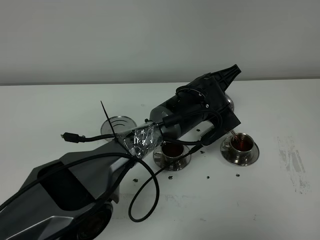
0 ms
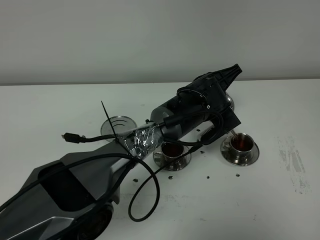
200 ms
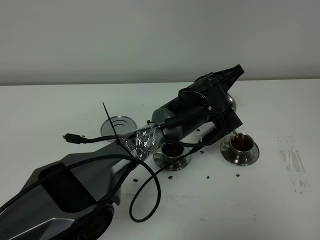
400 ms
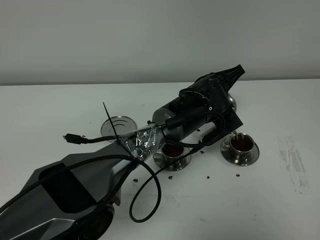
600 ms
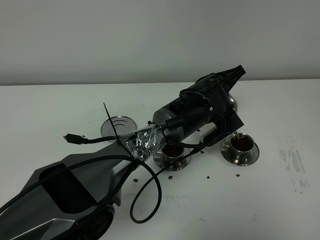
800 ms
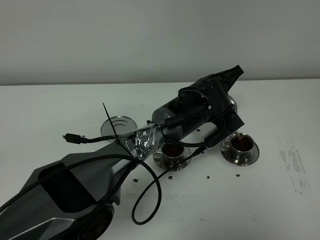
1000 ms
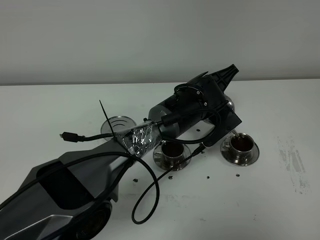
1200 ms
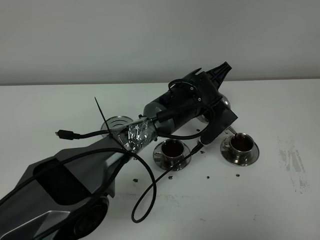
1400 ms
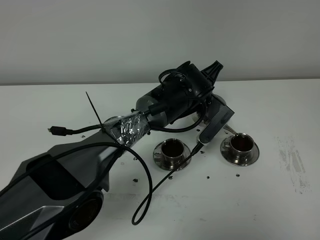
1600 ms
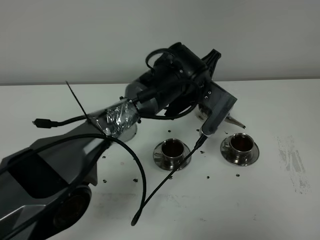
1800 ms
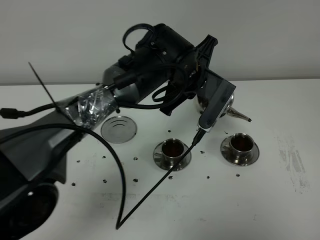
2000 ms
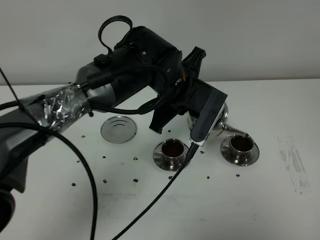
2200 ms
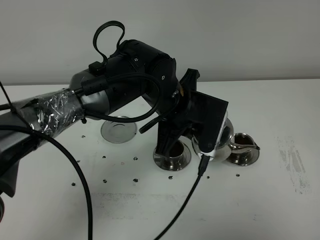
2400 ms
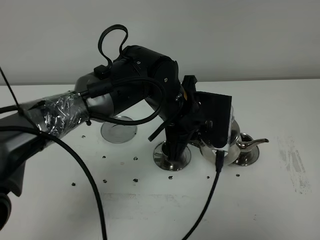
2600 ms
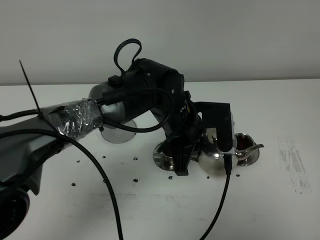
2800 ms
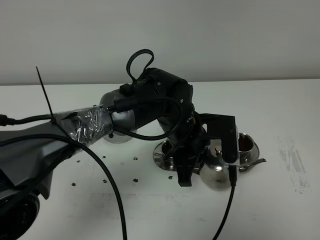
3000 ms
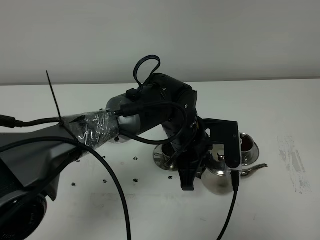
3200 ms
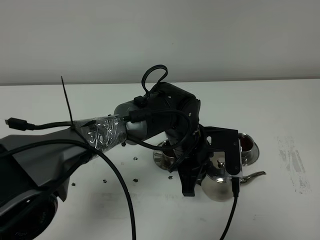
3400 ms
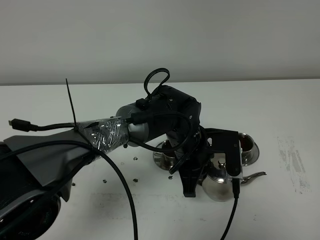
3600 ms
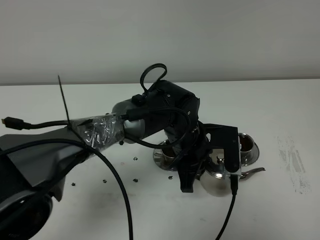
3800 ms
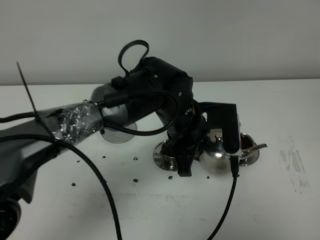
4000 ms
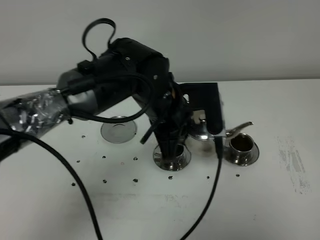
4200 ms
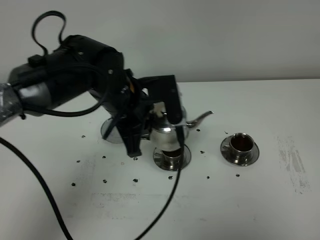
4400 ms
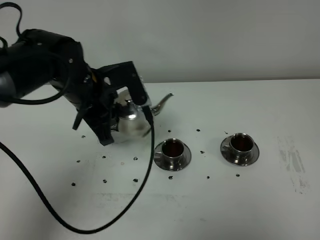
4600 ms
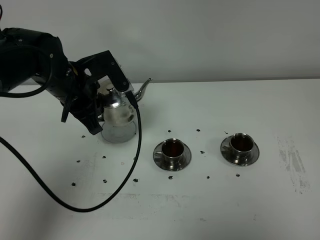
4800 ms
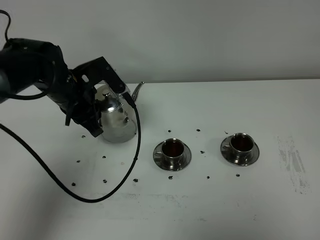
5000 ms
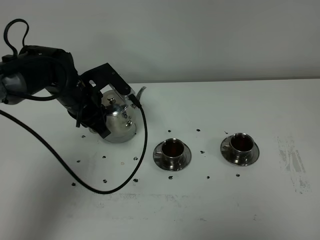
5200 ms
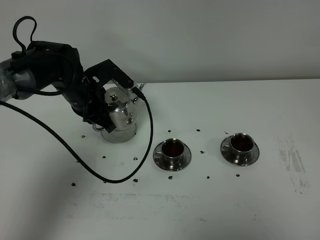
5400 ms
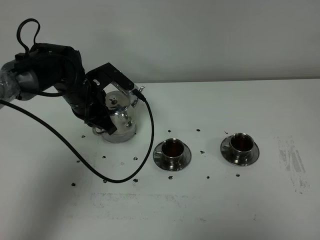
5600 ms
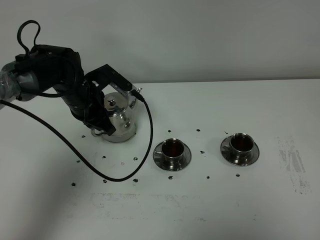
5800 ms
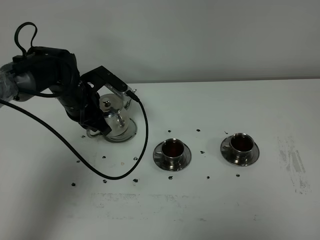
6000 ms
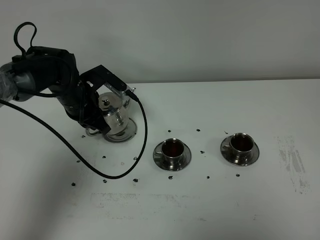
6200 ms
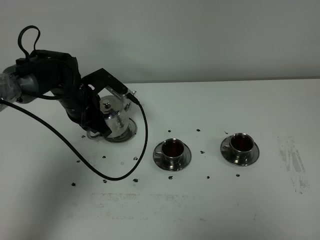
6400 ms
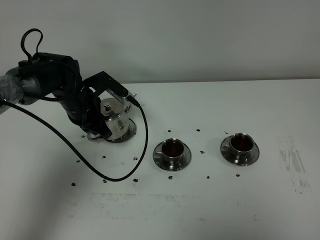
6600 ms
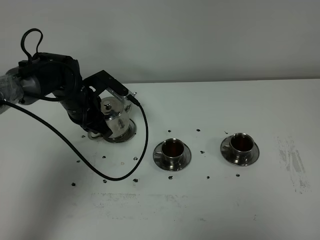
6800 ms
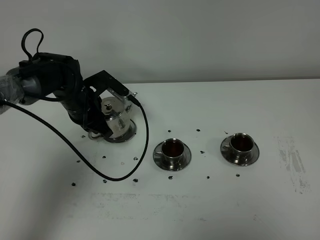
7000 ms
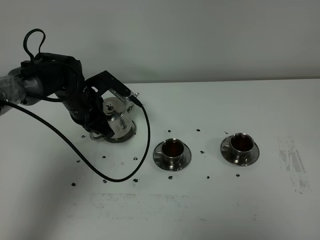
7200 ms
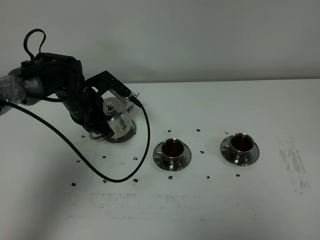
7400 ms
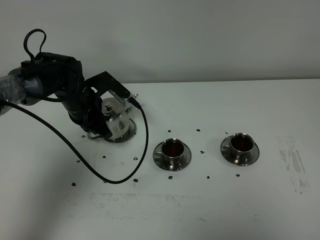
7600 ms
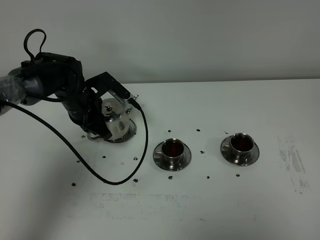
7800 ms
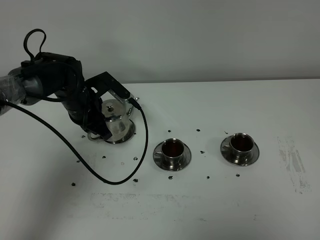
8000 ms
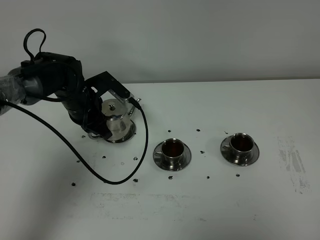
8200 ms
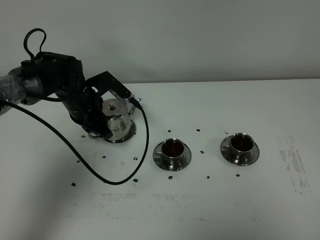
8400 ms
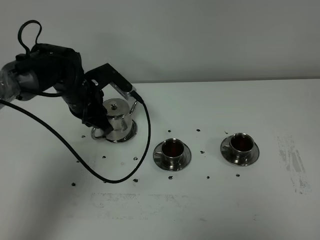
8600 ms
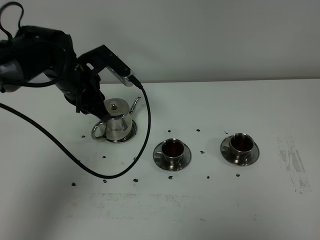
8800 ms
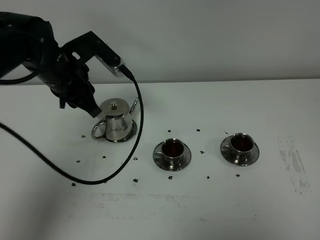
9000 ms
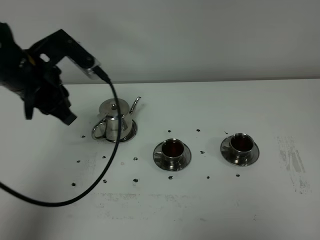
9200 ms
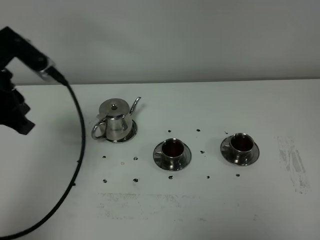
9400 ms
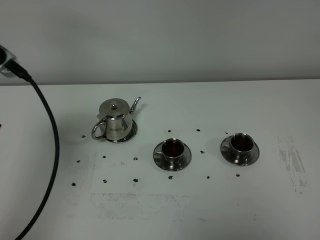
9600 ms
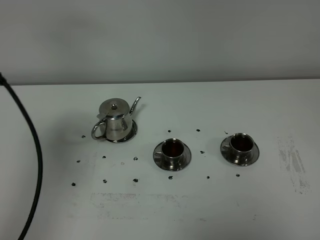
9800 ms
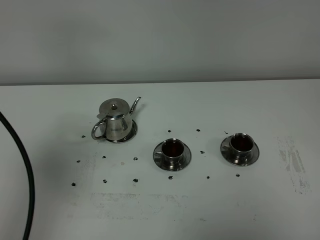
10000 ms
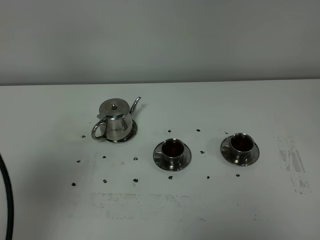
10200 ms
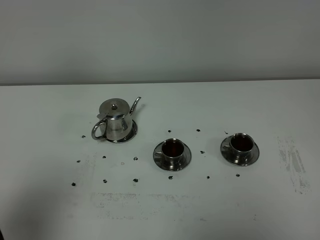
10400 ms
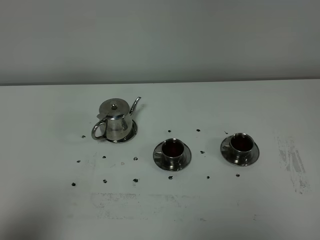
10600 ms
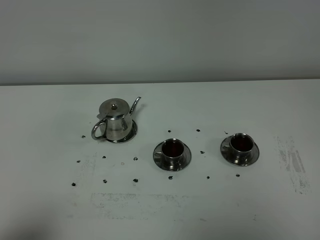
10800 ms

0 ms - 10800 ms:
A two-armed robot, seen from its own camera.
Task of the whole recording: grasp the stainless steel teapot and pour the tea into the two stainless steel teacups one by one, put the stainless steel teapot back in its original place.
0 ms - 1600 ms: There are only small adjustments of the grippers.
1600 ms - 3000 ms: The left gripper is displaced backward by some 10 cm.
3000 ms - 4600 ms: The left gripper moves to the left and upward, approximately 20 cm.
4600 ms - 6200 ms: The left gripper is displaced downward and forward by about 10 cm.
6200 ms - 7800 ms: There are only small adjustments of the grippers.
7800 ms - 9200 ms: The left gripper travels upward and backward by roughly 20 cm.
9200 ms - 10800 ms: The left gripper shifts approximately 30 cm backward.

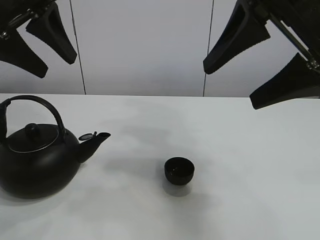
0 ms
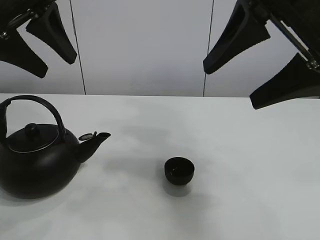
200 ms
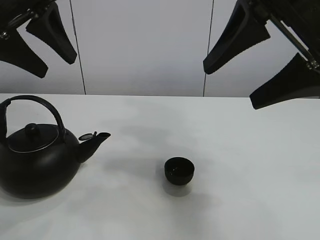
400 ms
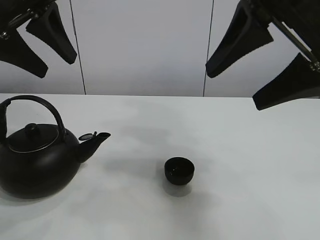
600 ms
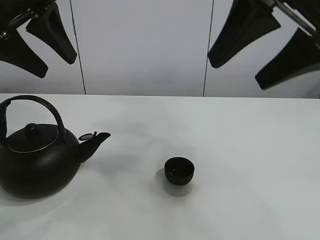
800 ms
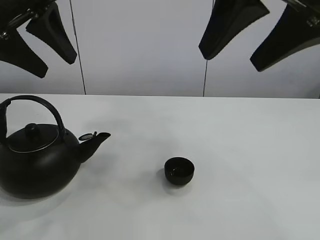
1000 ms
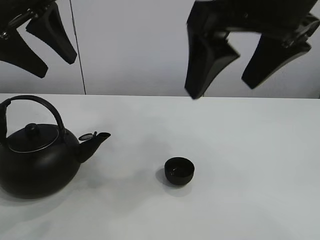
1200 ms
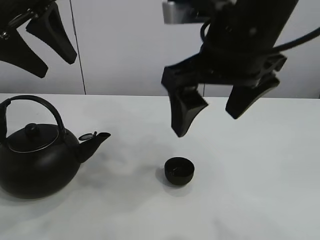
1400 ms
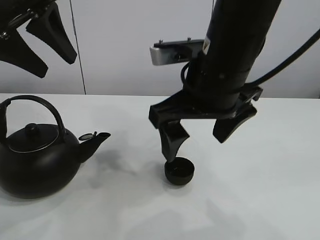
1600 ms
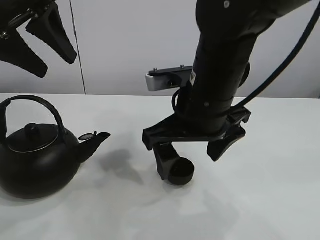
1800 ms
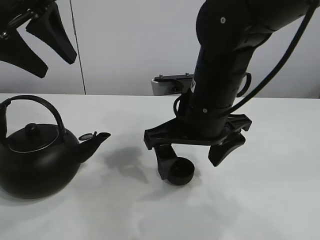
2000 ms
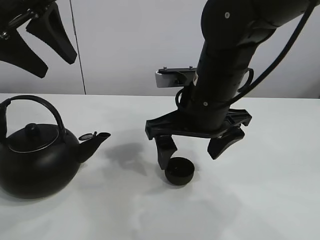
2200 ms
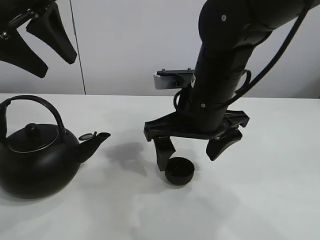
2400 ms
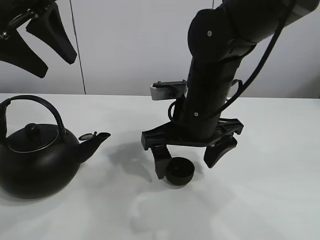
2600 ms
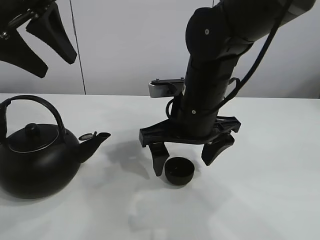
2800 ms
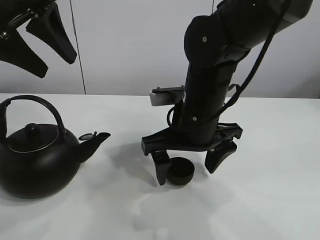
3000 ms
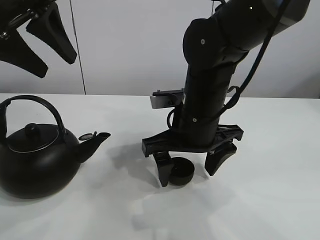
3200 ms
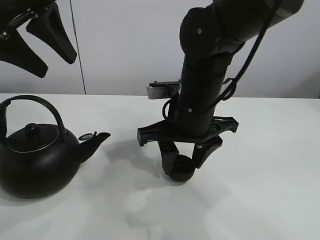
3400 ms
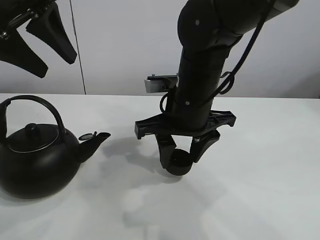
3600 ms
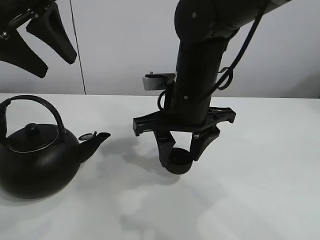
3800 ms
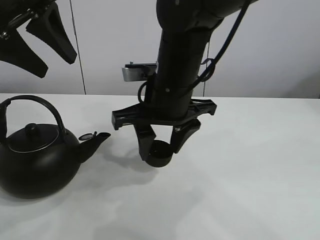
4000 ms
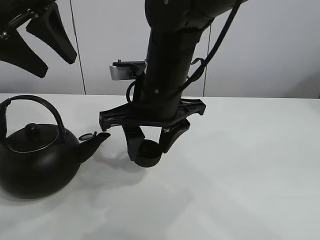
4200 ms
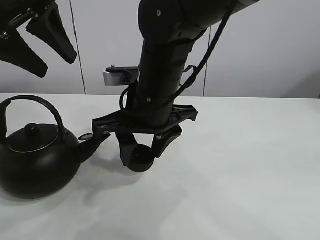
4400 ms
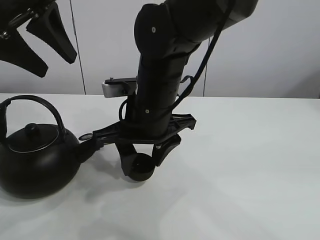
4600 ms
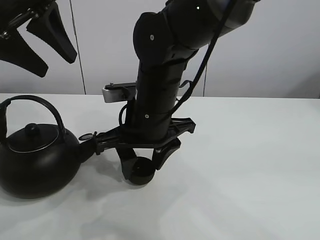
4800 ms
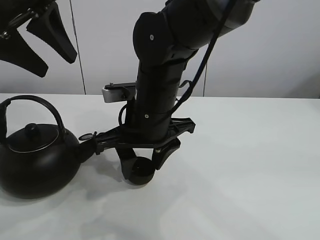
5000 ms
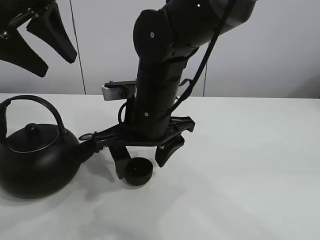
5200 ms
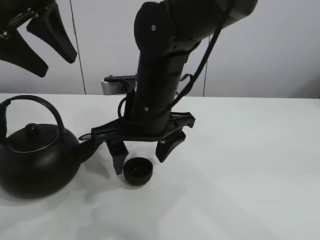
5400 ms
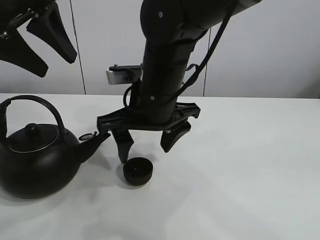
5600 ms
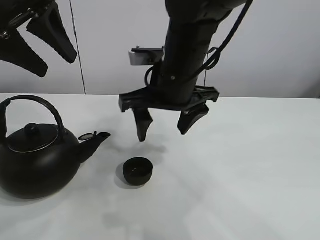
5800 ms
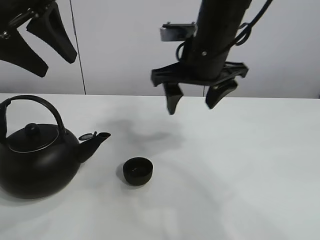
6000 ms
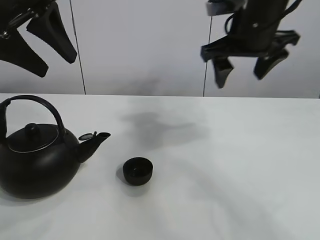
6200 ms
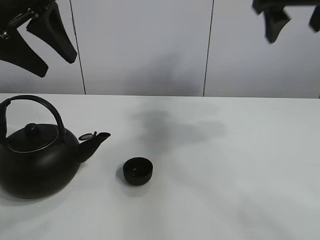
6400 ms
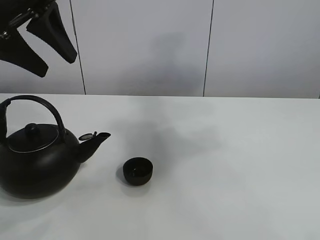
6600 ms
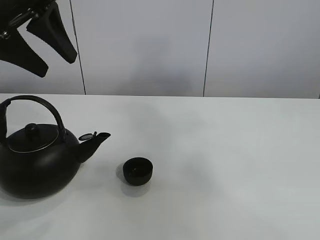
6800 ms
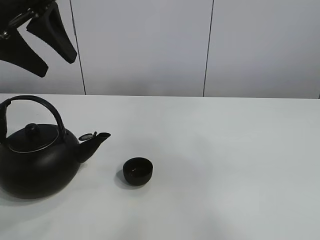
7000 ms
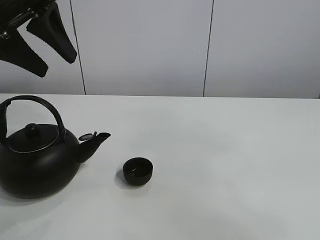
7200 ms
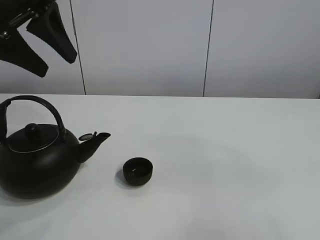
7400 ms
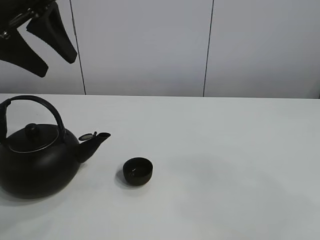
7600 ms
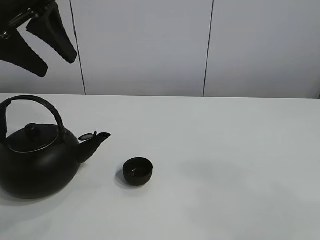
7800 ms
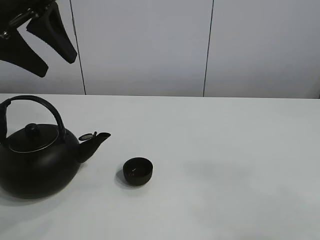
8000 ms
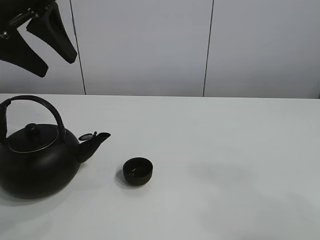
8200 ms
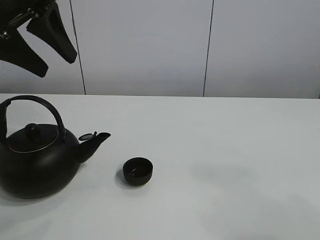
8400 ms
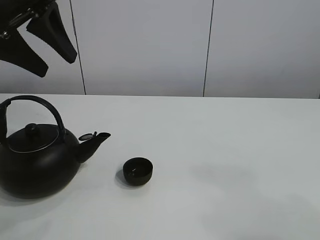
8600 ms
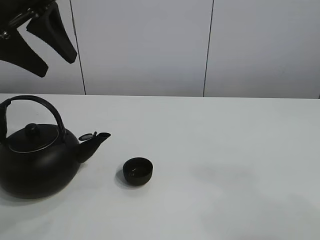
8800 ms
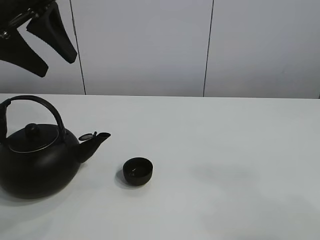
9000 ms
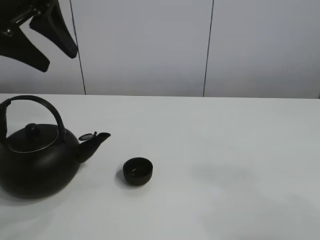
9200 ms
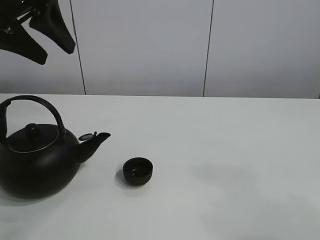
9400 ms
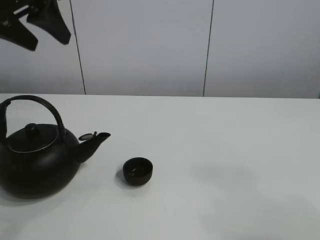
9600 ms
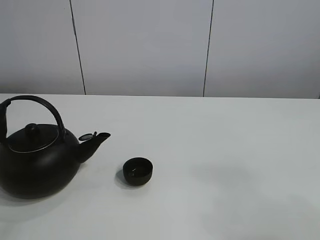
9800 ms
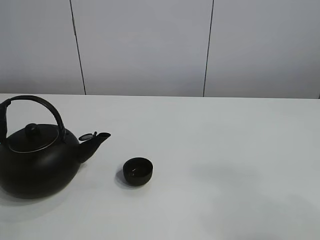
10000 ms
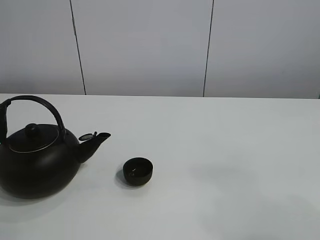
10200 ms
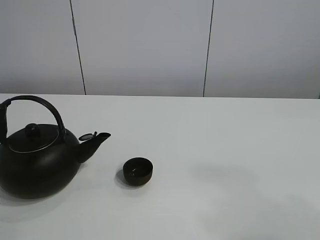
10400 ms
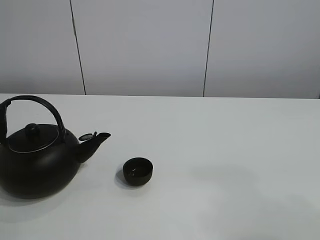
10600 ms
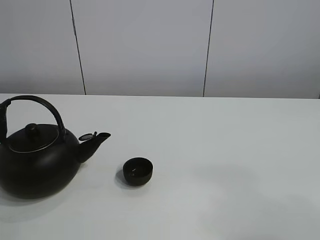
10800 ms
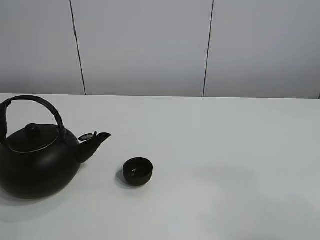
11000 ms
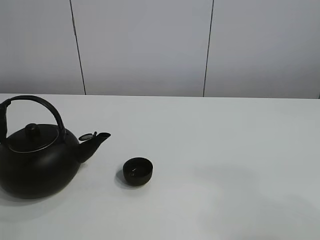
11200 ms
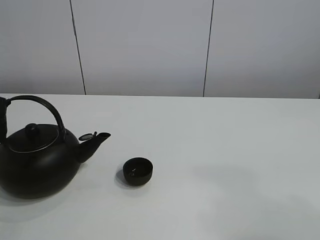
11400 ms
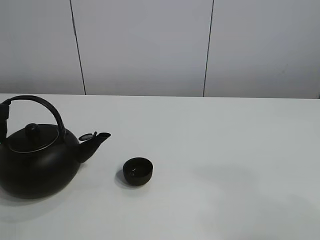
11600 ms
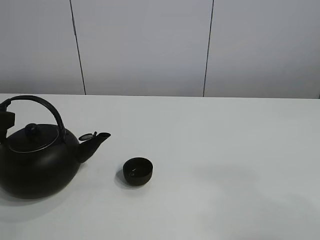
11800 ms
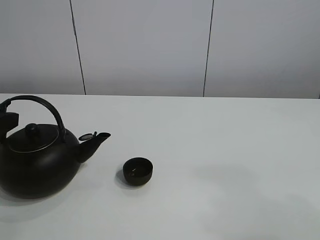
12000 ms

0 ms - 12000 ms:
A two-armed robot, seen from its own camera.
Task of the whole recording: pour tea into the teacup.
Step, 0 ms - 3200 ms: Pick up the teacup with the right gripper.
Step, 3600 ms - 5400 ms: Place the teacup in the center of view with the right gripper.
1600 ms - 3000 ms: The right gripper moves downward, about 5 cm.
3000 ms - 4400 ms: The right gripper heads to the left, covering about 5 cm, and closes its fingers.
4400 ms - 6000 ms: The right gripper is displaced to the right and upward by approximately 10 cm, and opens up.
6000 ms - 7600 ms: The right gripper shifts roughly 50 cm backward and to the right.
9000 ms - 10400 ms: The left gripper goes about 15 cm backward and to the left.
